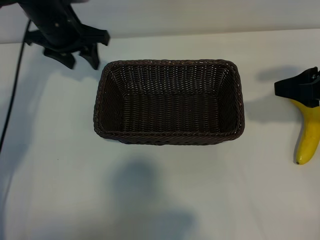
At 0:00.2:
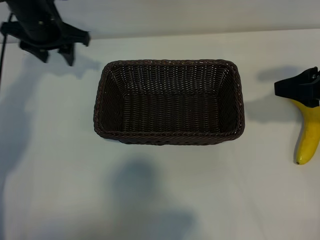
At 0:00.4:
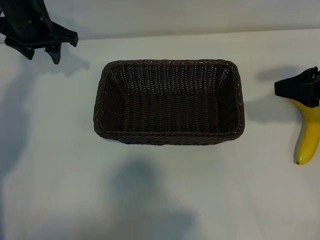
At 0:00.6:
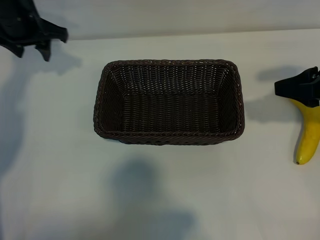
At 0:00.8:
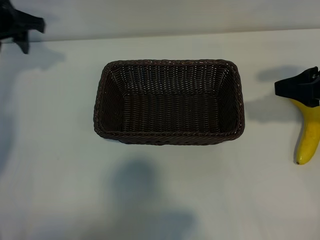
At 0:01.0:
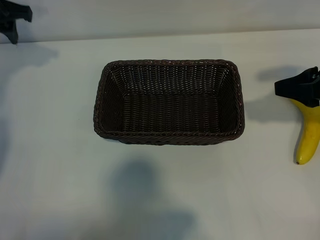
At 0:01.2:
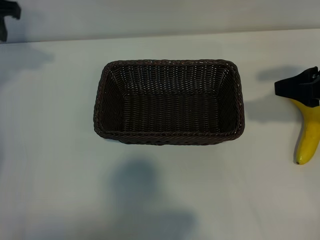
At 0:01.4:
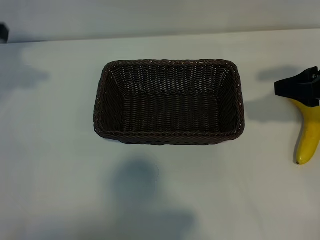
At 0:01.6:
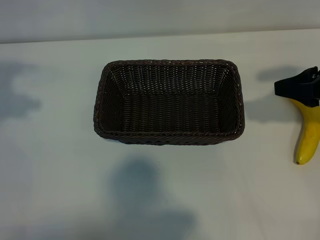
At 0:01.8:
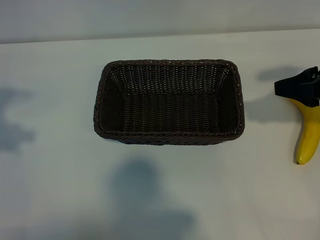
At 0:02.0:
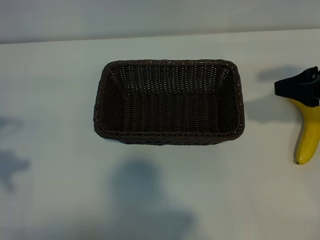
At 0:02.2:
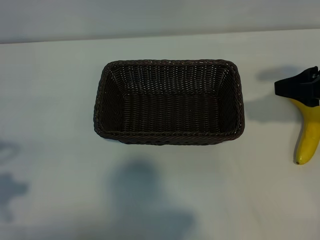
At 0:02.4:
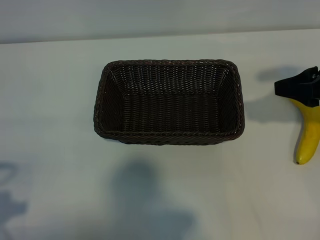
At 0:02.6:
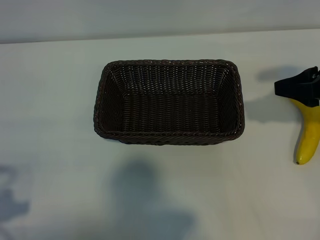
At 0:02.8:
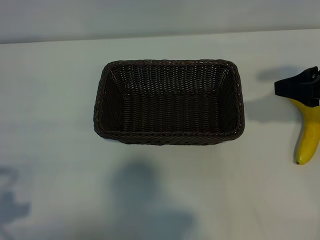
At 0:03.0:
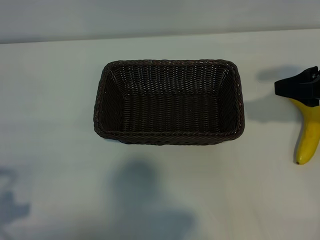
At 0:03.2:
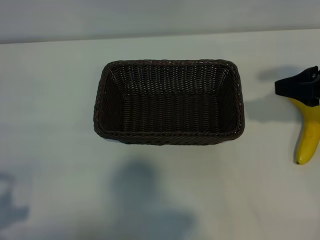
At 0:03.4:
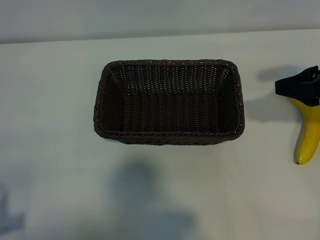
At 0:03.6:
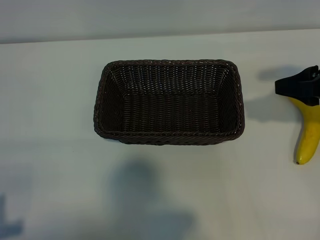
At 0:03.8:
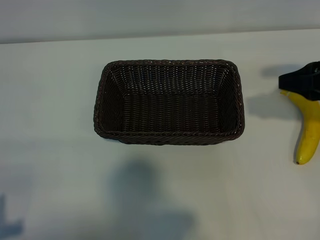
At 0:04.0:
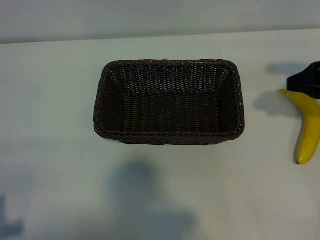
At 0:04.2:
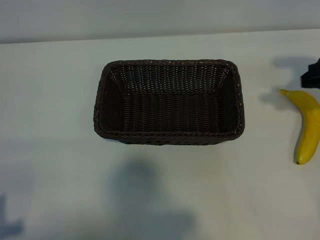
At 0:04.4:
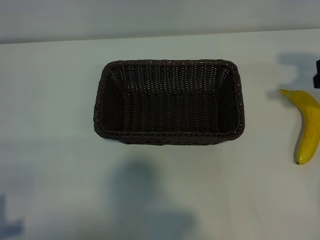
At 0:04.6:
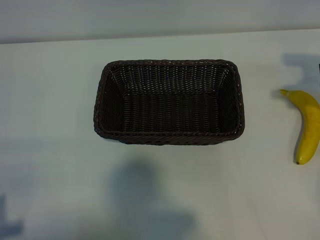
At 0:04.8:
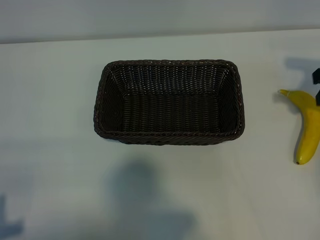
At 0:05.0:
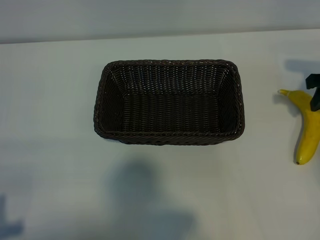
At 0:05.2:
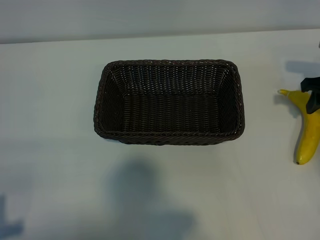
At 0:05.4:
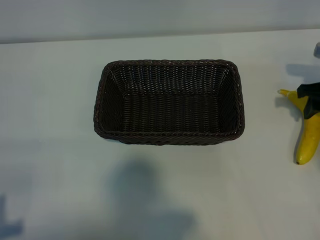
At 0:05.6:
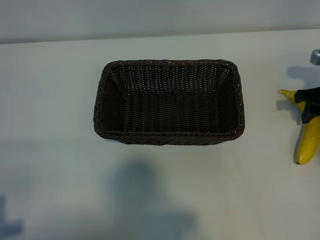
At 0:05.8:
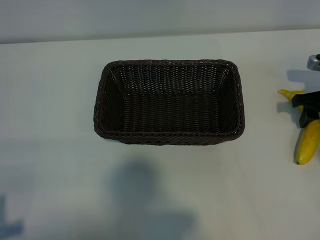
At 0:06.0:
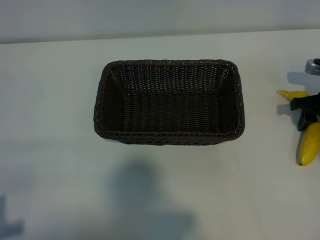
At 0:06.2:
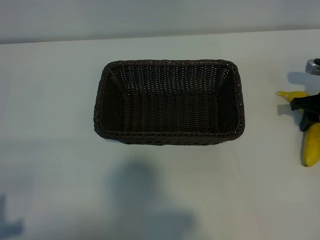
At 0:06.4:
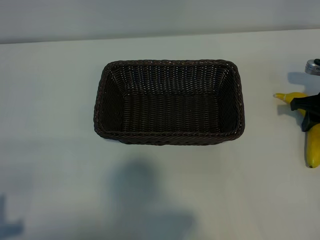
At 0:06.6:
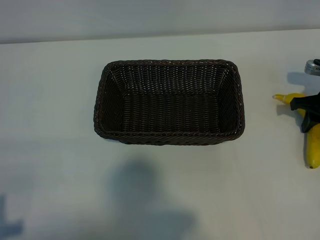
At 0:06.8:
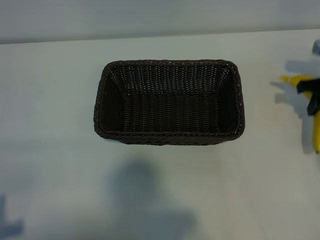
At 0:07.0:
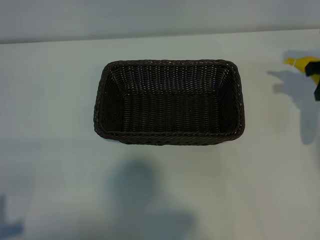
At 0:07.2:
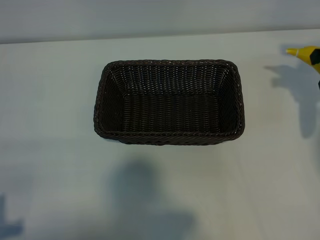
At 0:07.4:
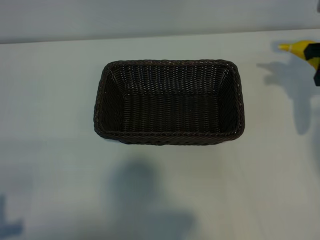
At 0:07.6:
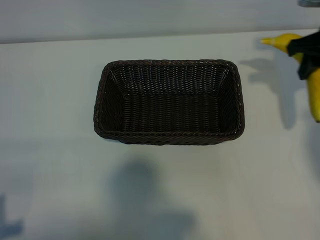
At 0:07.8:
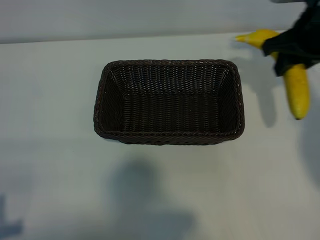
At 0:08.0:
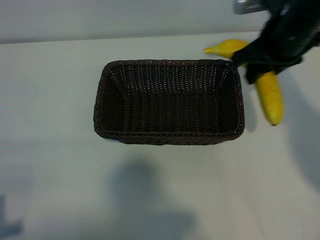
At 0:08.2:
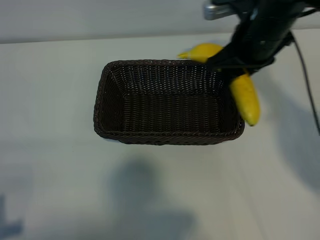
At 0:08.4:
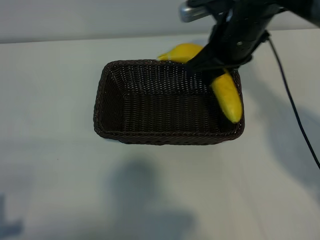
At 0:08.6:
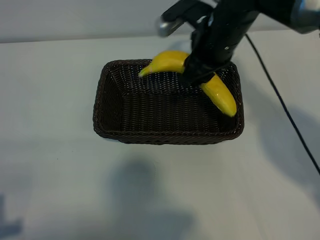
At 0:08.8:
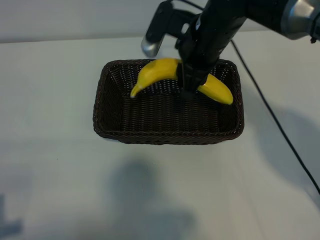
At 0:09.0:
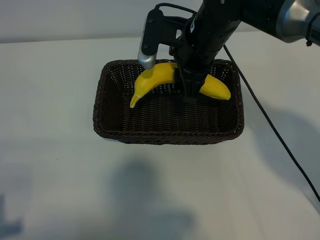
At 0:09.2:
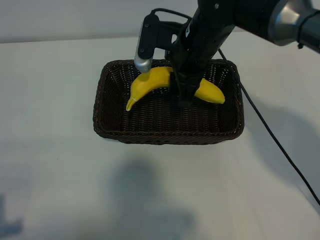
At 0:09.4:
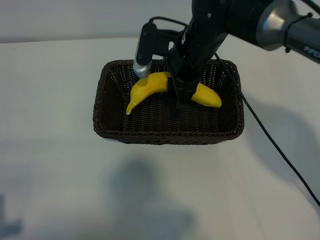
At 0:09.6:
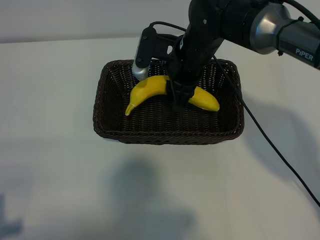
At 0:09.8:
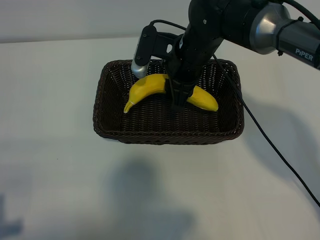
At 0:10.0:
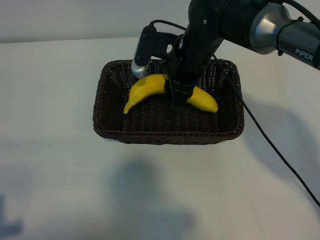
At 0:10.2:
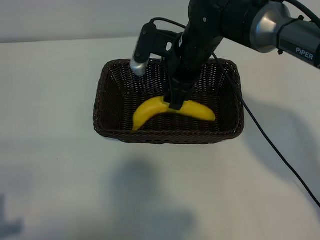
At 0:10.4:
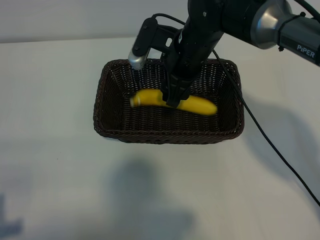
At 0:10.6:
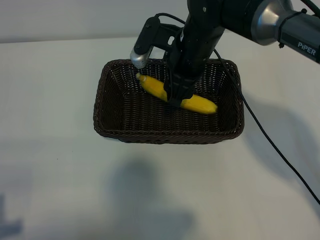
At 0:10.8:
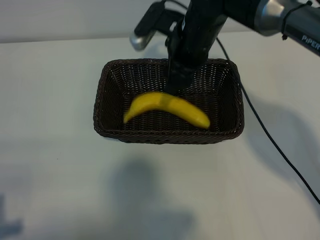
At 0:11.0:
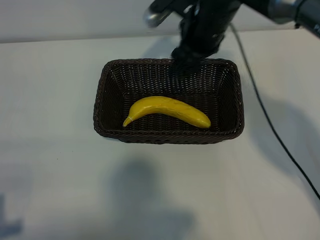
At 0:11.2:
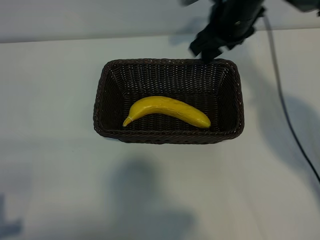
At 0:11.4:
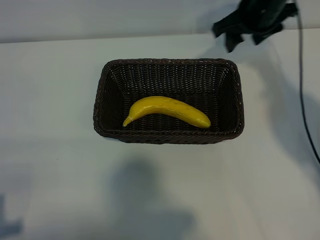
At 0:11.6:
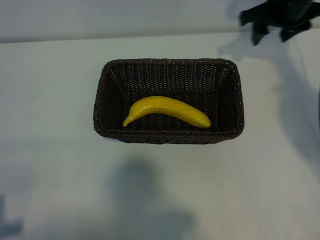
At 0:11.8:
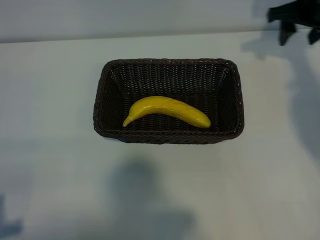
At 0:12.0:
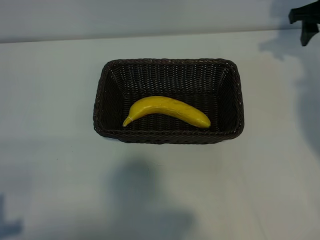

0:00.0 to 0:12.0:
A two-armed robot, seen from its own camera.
Task of the whole recording: pick up the banana and put it into the basket.
Step, 0:00.0 to 0:06.4: Grasp the banana with right gripper.
Step, 0:06.6 to 0:10.2: Place the banana in the basket with right gripper.
